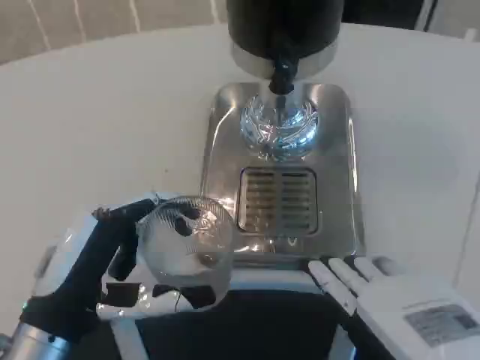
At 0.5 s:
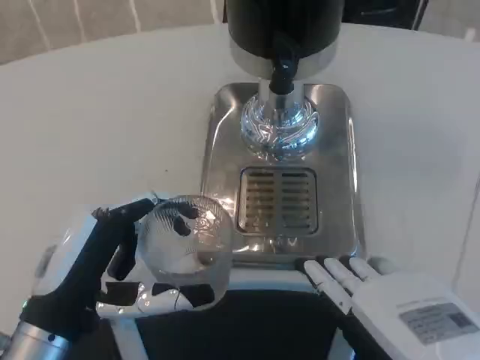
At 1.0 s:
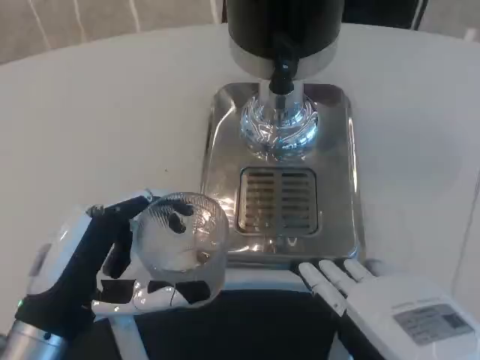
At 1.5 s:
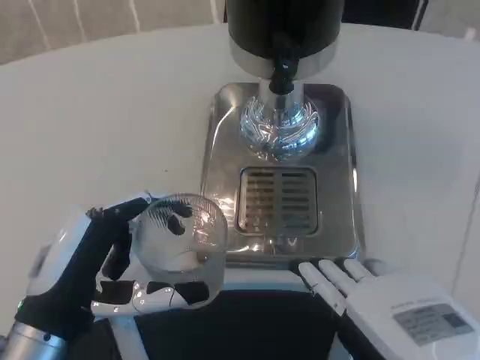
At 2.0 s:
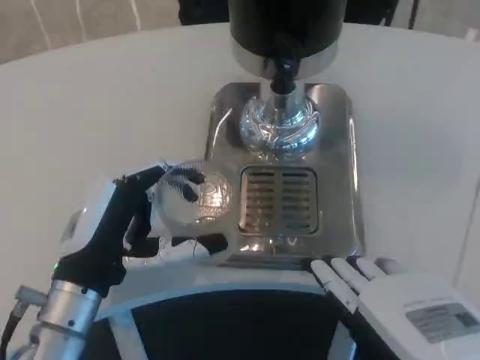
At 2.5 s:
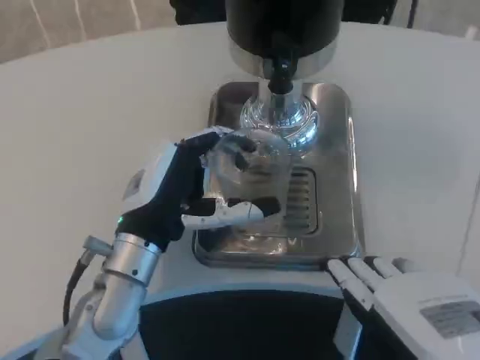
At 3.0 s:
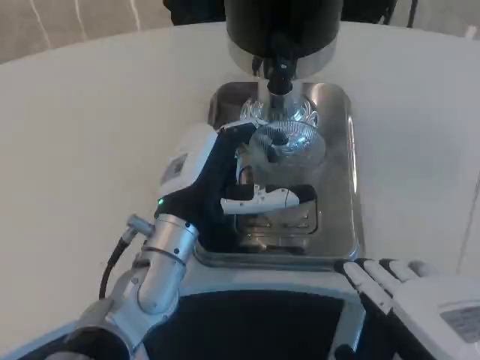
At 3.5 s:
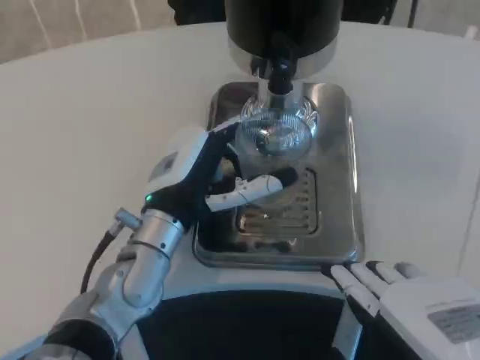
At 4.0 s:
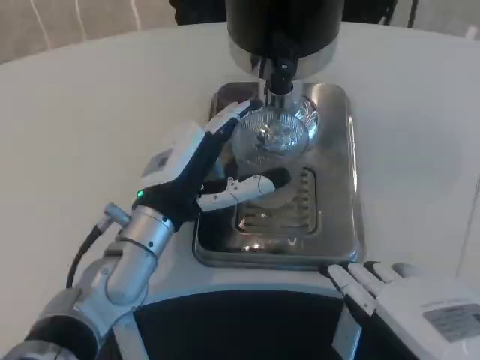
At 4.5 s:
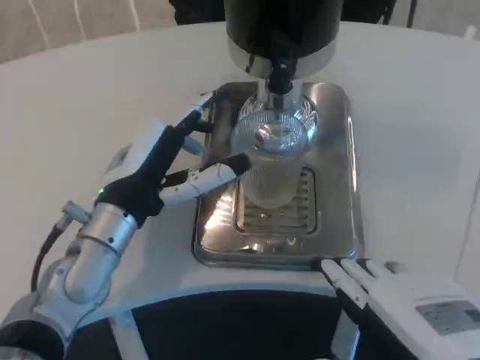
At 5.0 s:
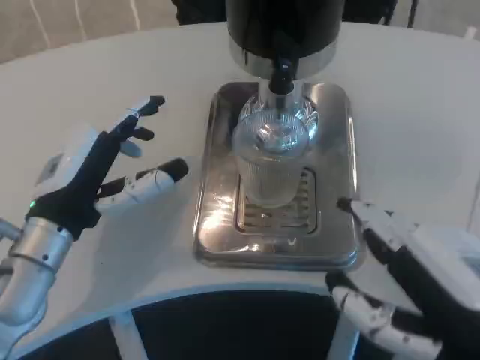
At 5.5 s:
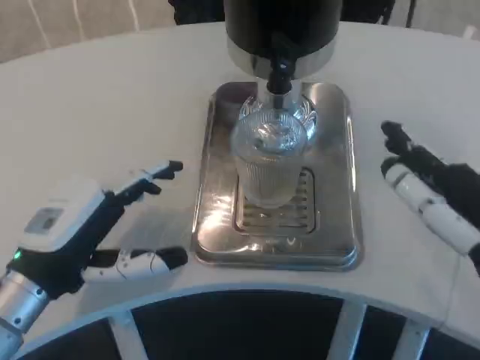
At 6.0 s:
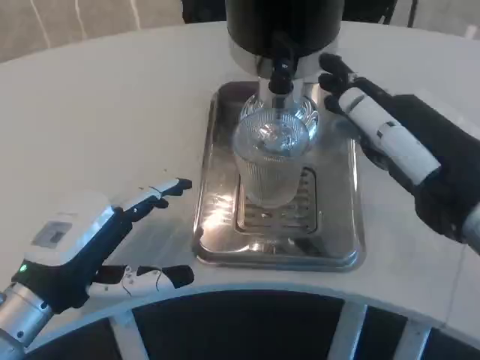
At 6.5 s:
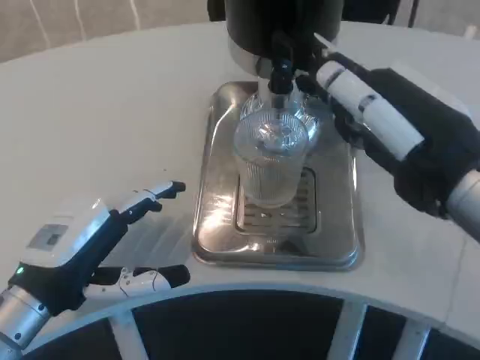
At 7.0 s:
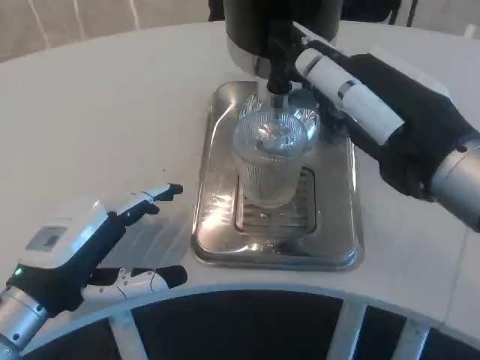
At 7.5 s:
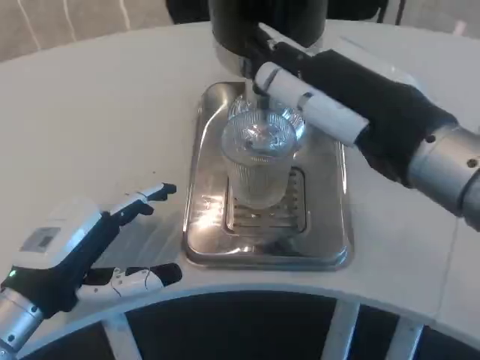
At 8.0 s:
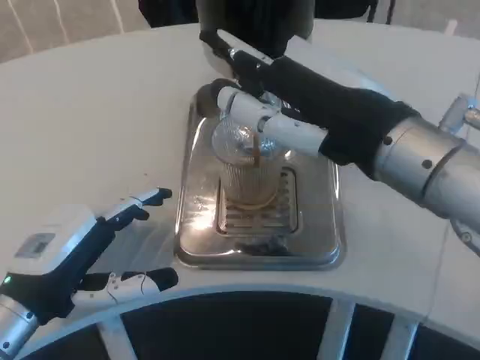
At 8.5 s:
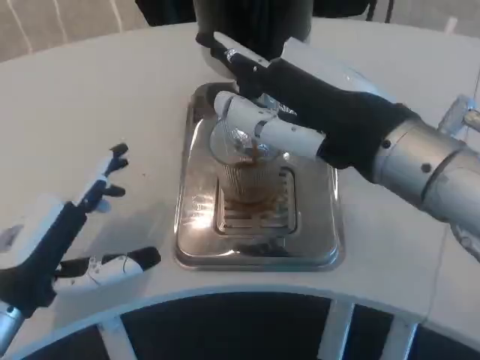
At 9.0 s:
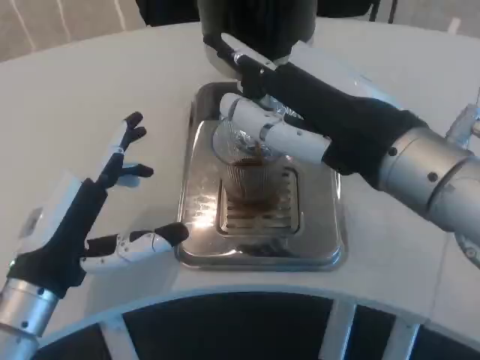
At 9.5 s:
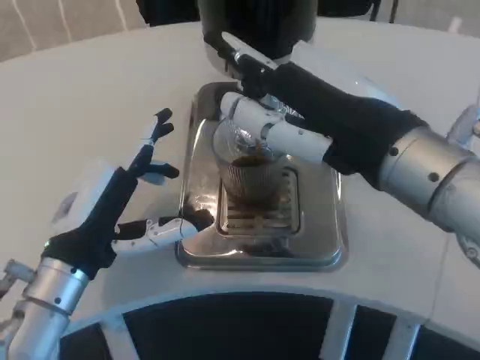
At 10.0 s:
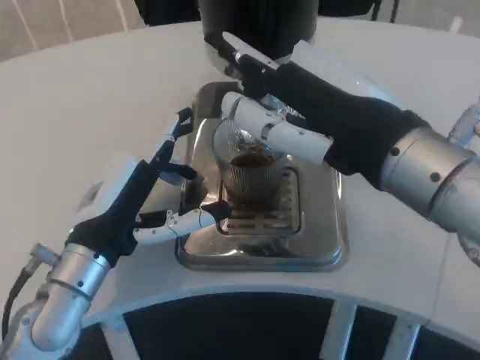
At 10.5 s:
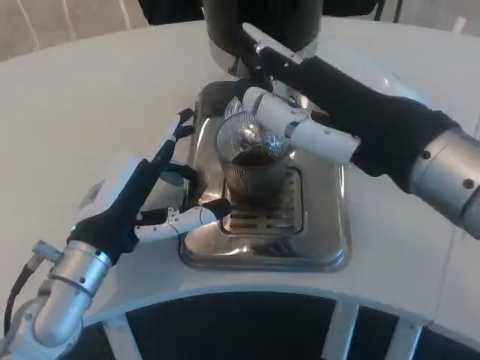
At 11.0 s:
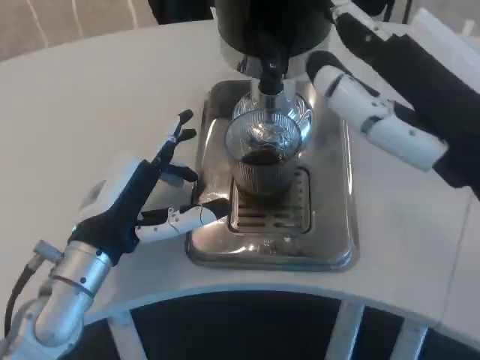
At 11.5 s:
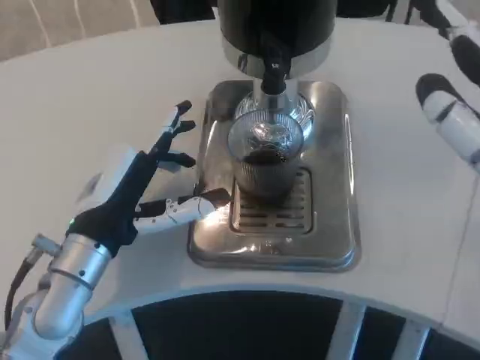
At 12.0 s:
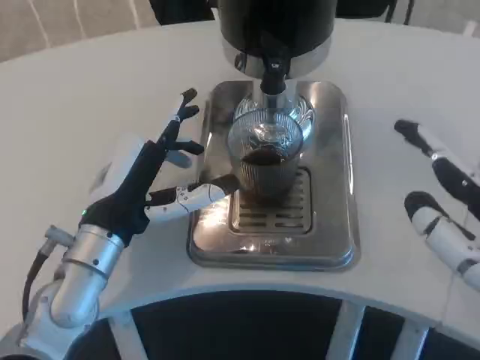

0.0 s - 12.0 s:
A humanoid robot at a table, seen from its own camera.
Task of the whole recording: Grasp the cup under the faucet to collect the drink, then remove the cup.
0.0 s - 2.0 s: The left hand shifts some 5 cm forward.
2.0 s - 4.0 s: The left hand travels forward and to the right by roughly 10 cm.
4.0 s - 6.0 s: The right hand shifts approximately 10 cm forward and upward, while the left hand is displaced to the left and backward by roughly 15 cm.
6.0 s - 8.0 s: The right hand is displaced to the left by about 5 cm.
8.0 s - 10.0 s: The left hand goes about 10 cm to the right and forward.
10.0 s - 12.0 s: The right hand heads backward, to the right and downward, covering about 15 cm.

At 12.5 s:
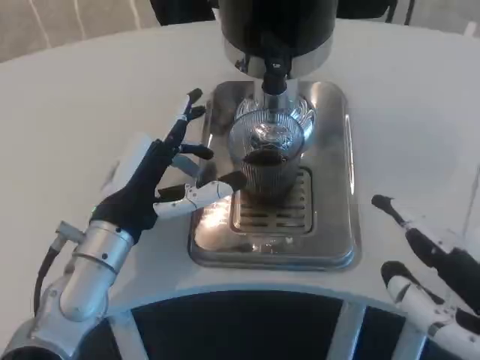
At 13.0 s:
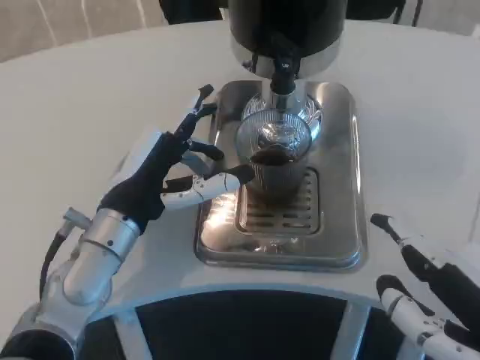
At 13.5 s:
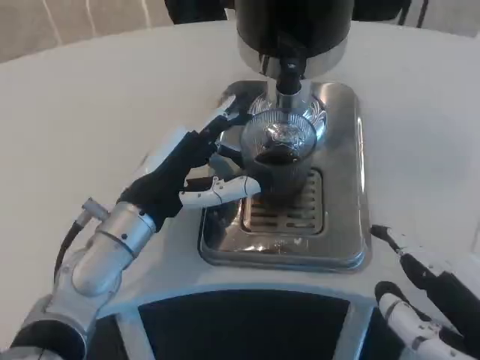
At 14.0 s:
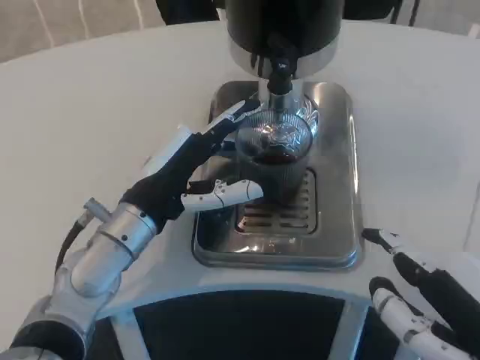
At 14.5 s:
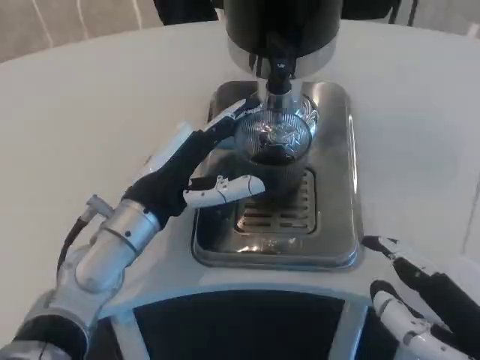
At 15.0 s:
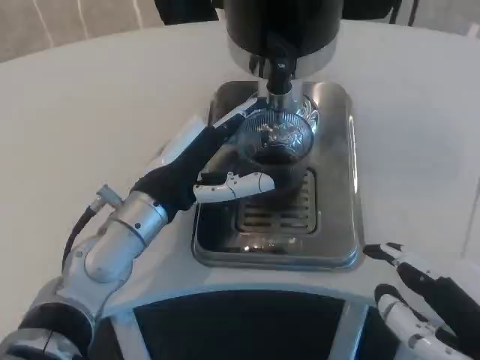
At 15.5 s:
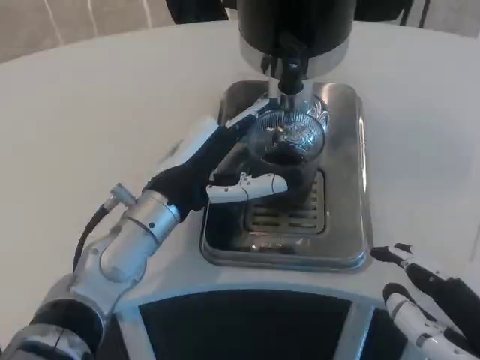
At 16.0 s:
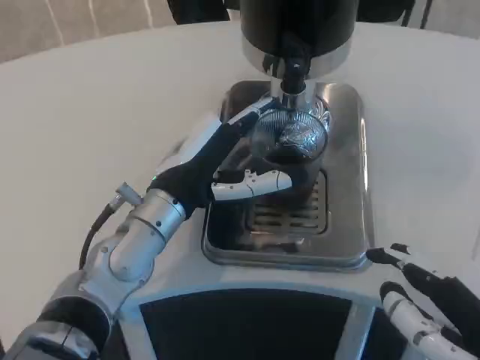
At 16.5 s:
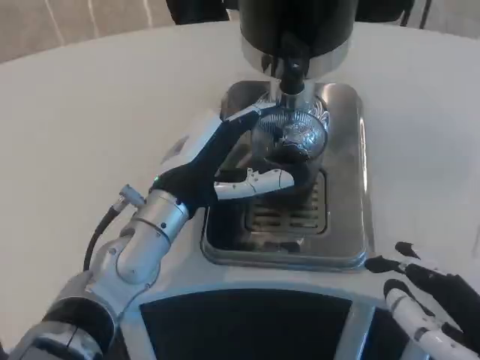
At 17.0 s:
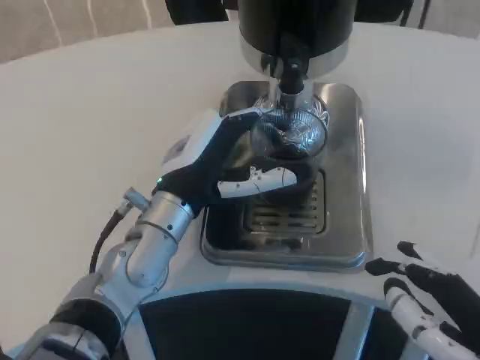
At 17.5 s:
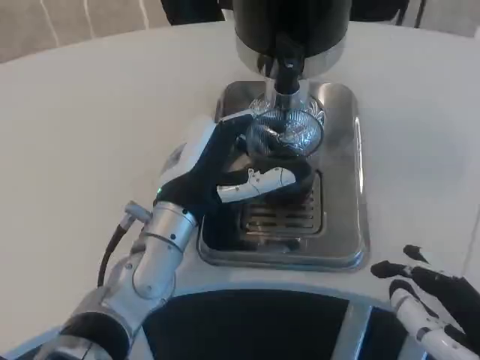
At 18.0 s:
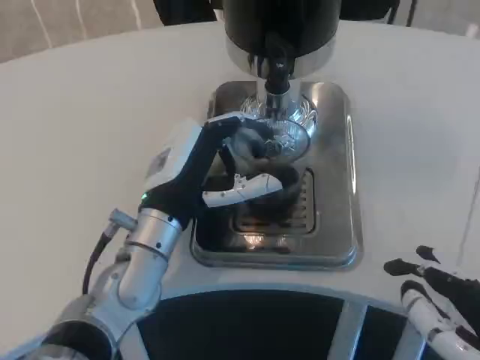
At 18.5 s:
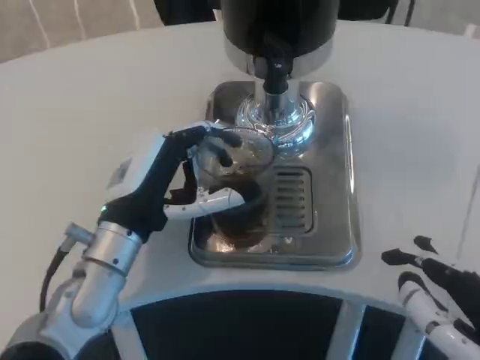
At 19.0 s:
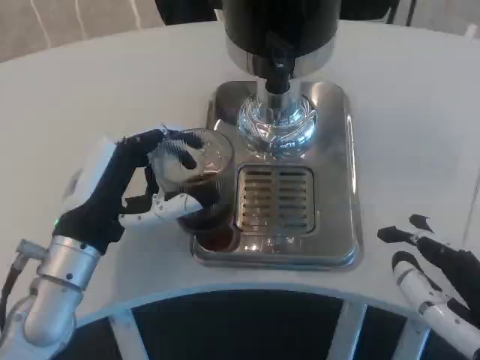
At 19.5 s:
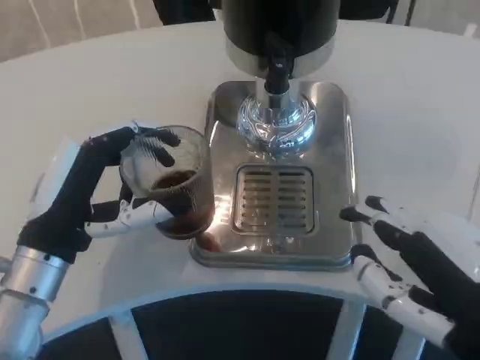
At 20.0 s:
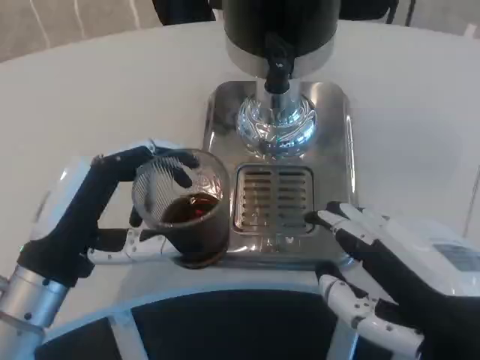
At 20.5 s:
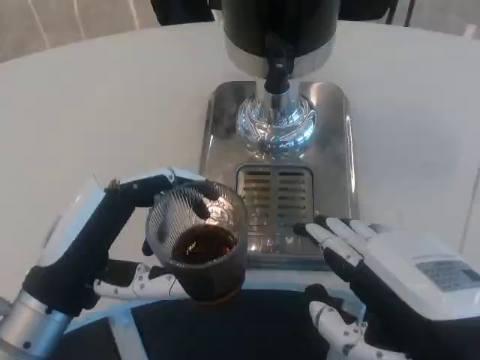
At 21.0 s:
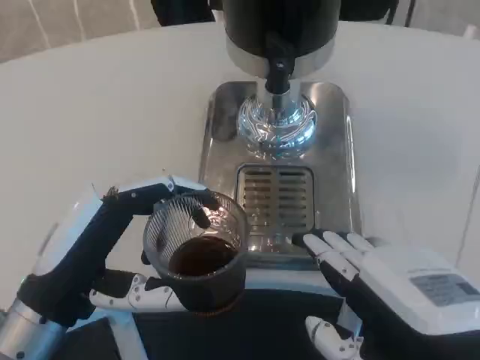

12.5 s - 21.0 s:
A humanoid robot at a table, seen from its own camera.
Task of the whole recording: Grasp the cup under the faucet to collect the drink, then remove the cup.
16.5 s - 19.0 s: The left hand goes some 10 cm to the left.
19.0 s - 21.0 s: The left hand is displaced backward by some 5 cm.

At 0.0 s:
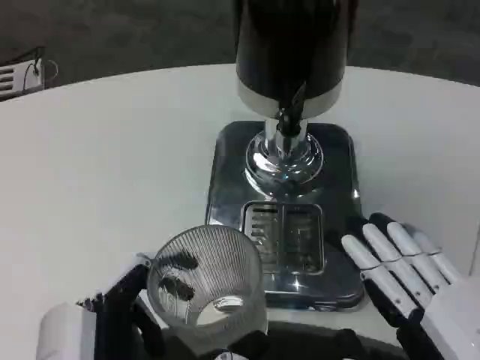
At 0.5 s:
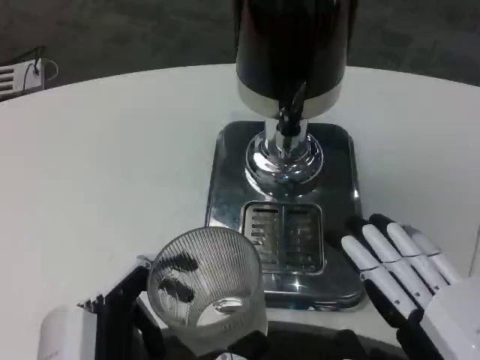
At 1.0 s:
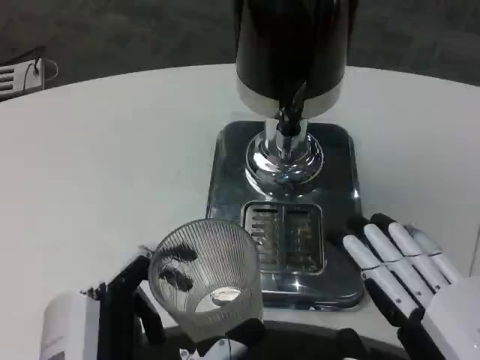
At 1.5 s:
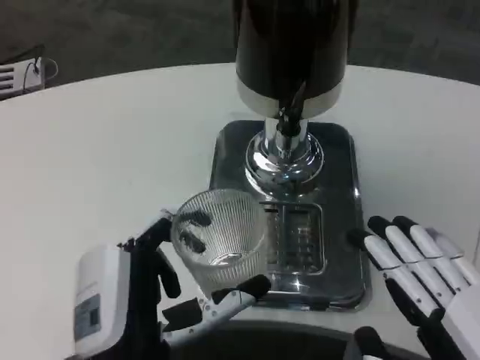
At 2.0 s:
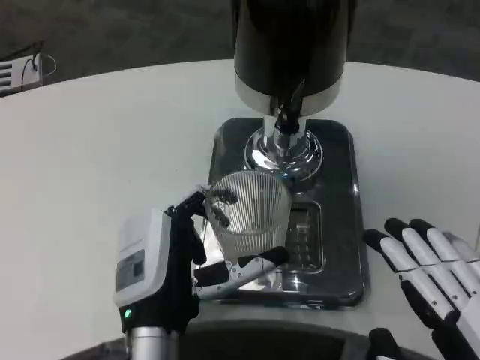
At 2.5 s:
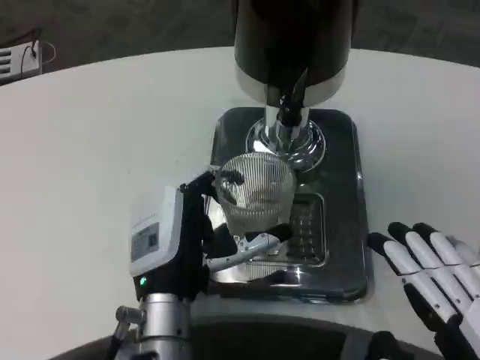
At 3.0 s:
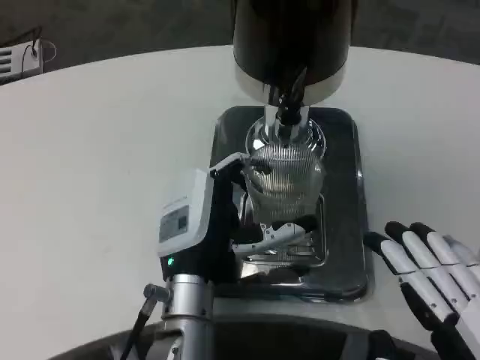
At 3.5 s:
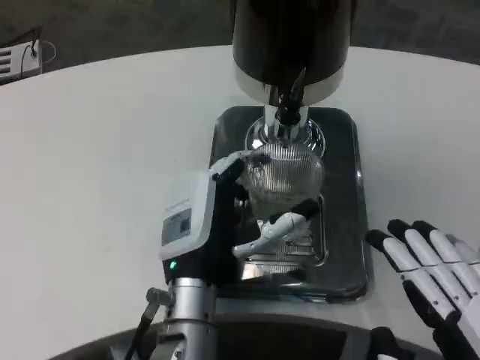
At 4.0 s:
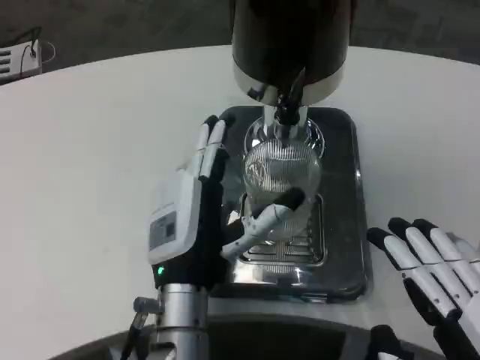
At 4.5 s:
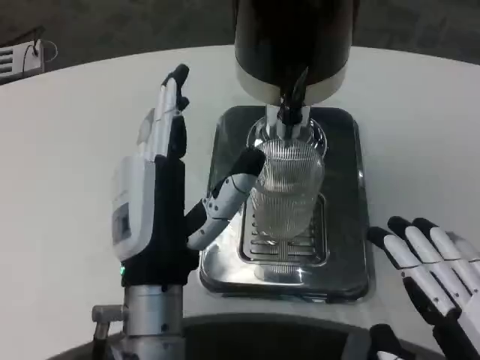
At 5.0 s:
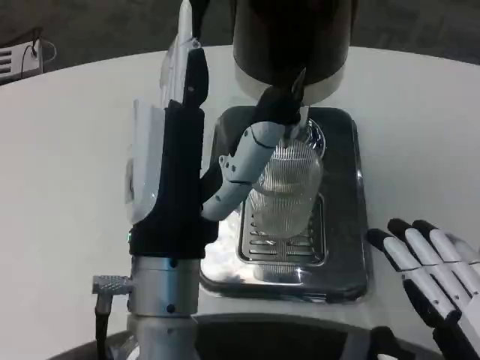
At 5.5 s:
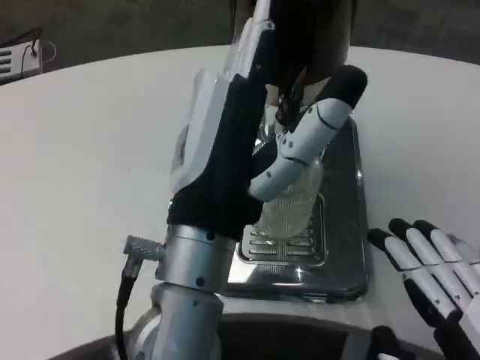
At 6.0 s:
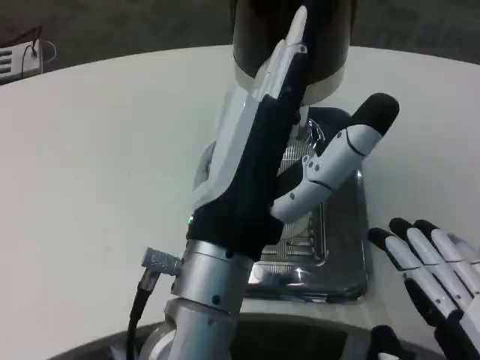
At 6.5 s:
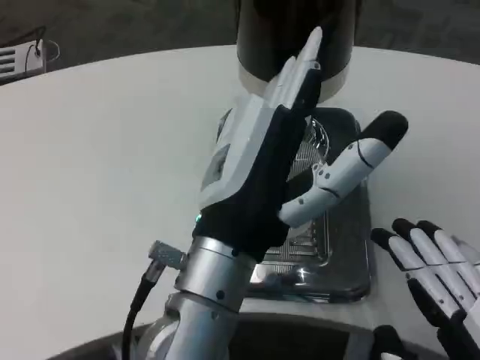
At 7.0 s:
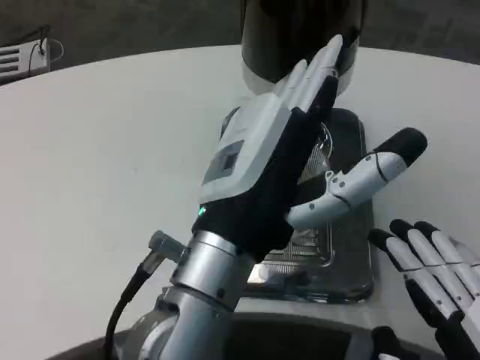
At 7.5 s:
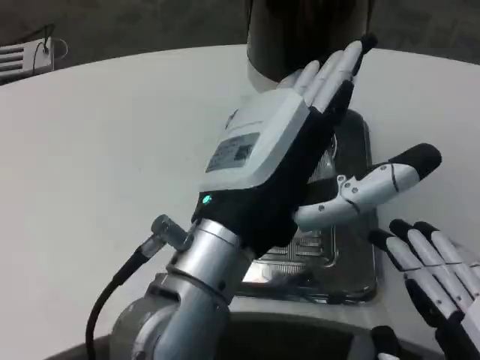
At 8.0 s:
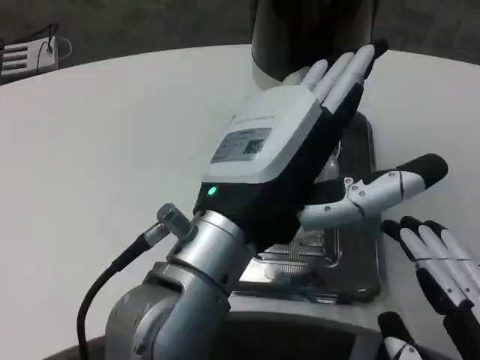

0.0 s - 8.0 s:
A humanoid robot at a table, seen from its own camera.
Task of the whole recording: Grasp the cup under the faucet to collect the drink, then remove the cup.
0.0 s - 2.0 s: The left hand goes roughly 15 cm forward.
4.0 s - 6.0 s: The left hand heads upward and backward, covering approximately 15 cm.
